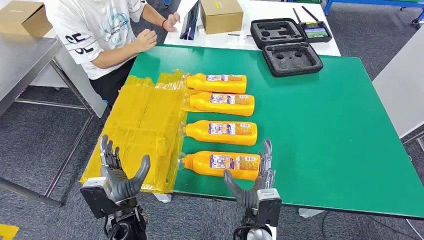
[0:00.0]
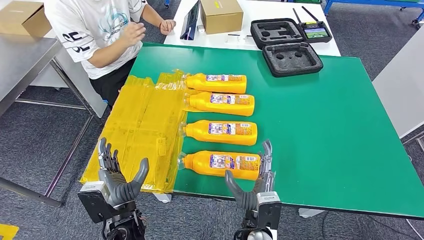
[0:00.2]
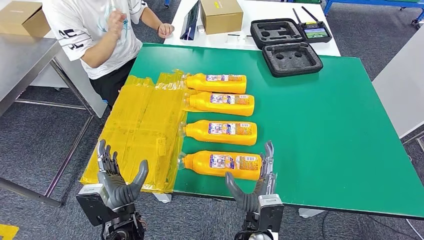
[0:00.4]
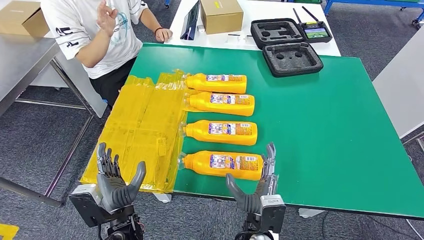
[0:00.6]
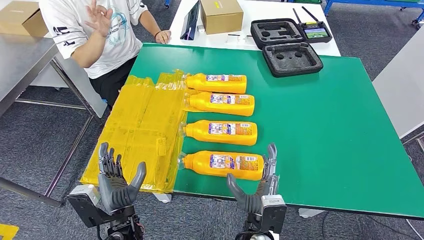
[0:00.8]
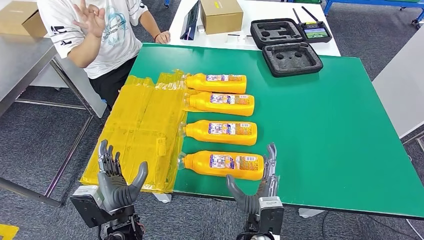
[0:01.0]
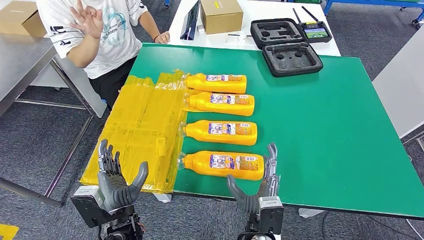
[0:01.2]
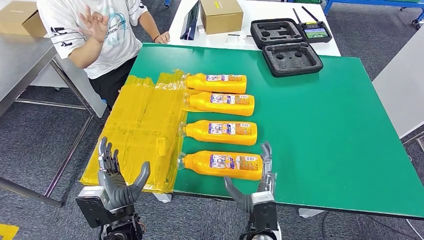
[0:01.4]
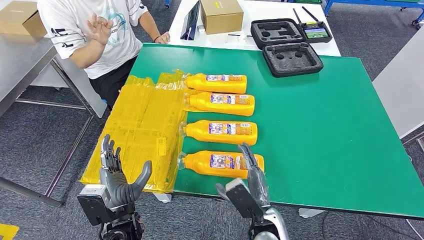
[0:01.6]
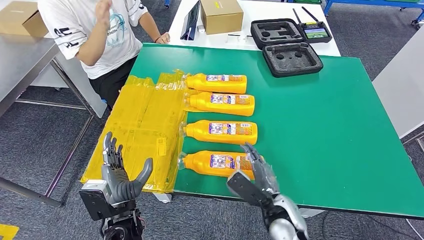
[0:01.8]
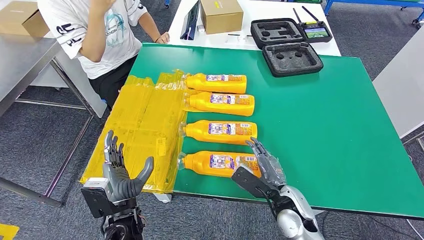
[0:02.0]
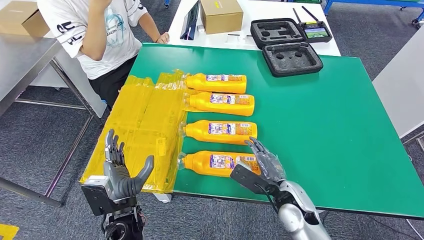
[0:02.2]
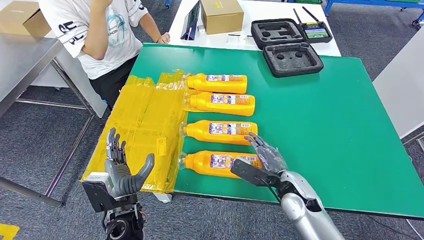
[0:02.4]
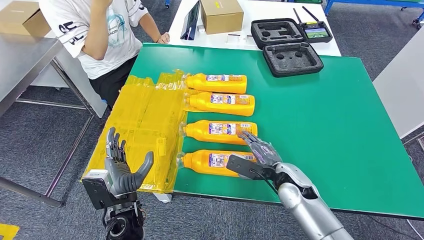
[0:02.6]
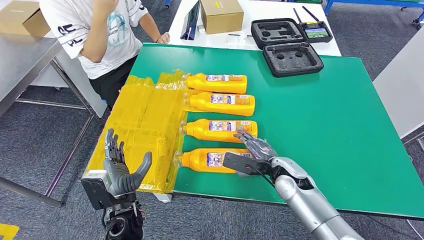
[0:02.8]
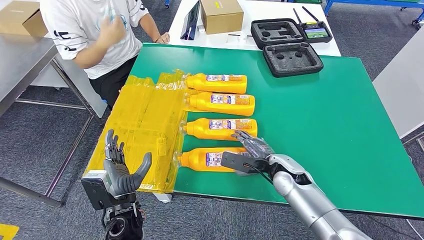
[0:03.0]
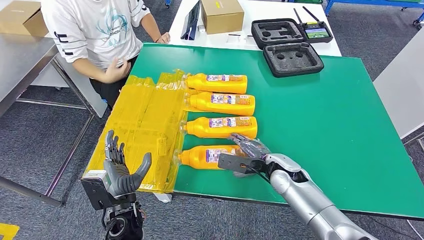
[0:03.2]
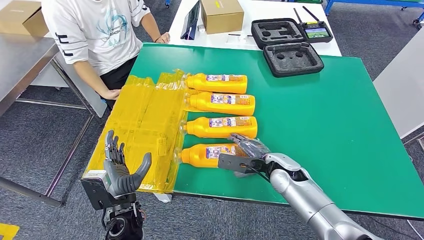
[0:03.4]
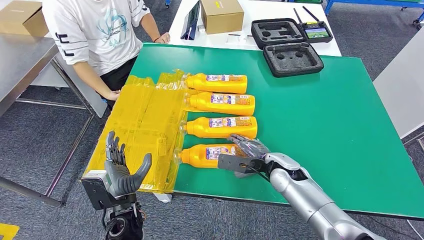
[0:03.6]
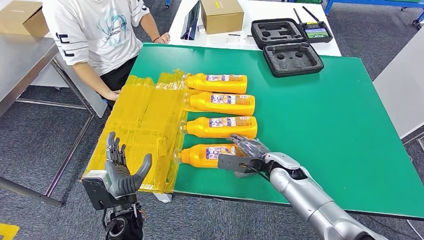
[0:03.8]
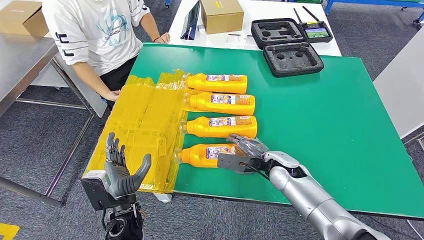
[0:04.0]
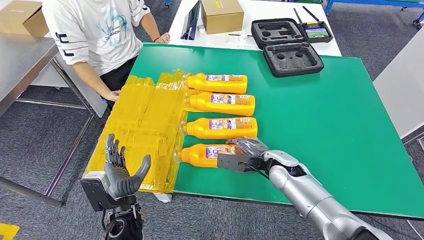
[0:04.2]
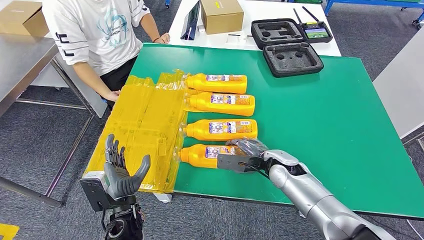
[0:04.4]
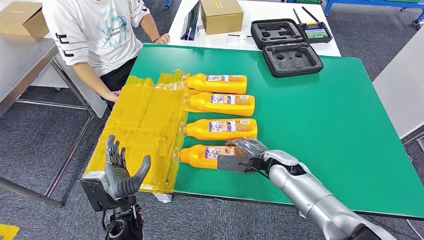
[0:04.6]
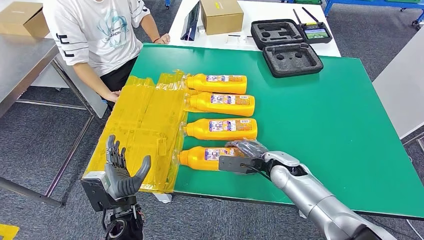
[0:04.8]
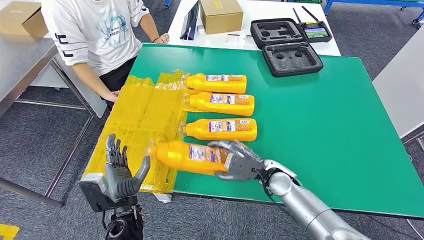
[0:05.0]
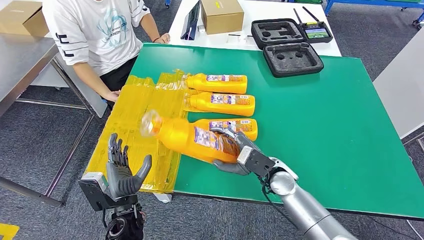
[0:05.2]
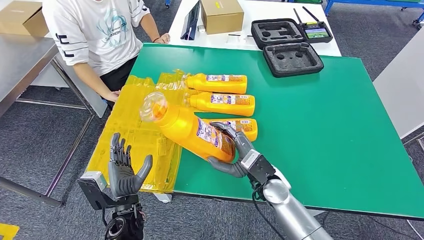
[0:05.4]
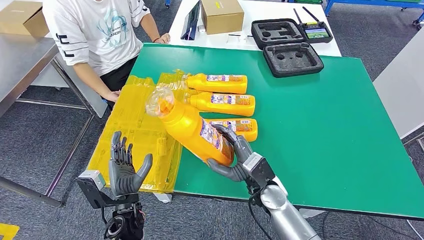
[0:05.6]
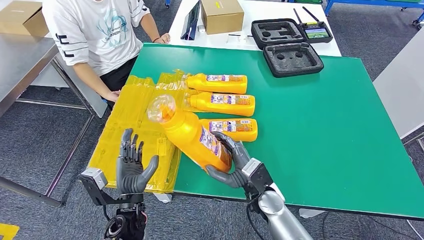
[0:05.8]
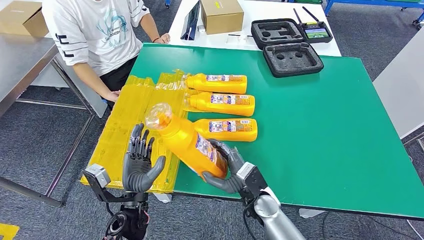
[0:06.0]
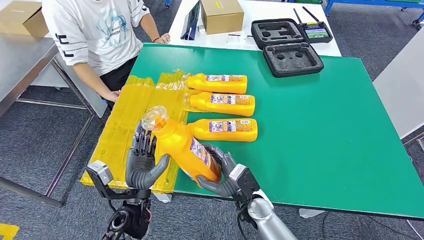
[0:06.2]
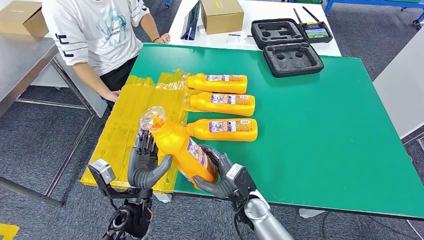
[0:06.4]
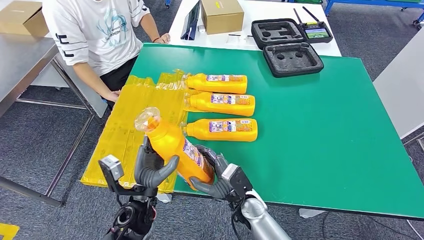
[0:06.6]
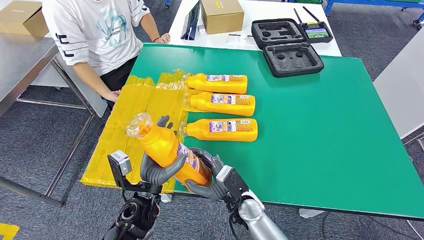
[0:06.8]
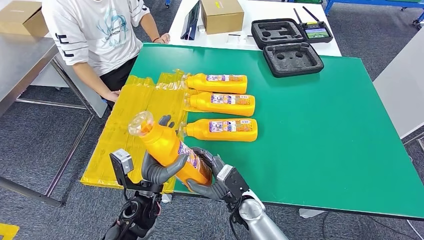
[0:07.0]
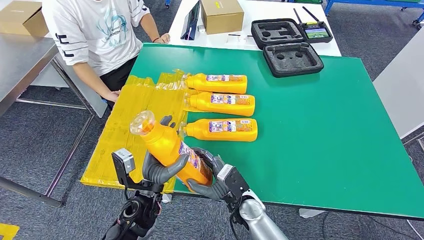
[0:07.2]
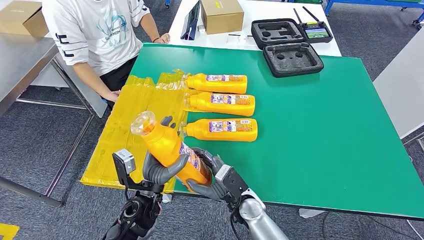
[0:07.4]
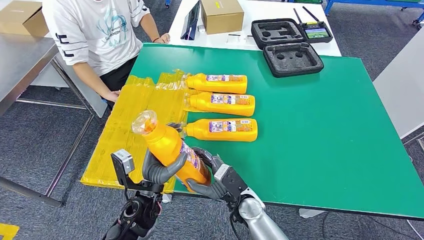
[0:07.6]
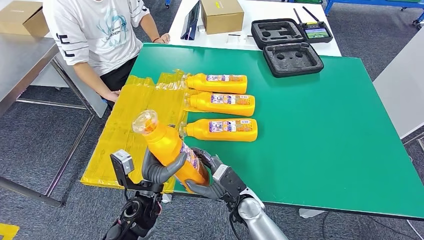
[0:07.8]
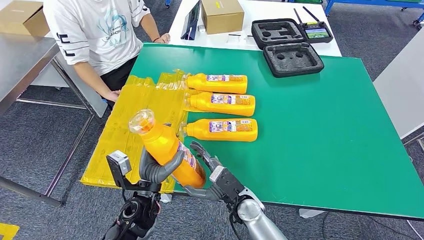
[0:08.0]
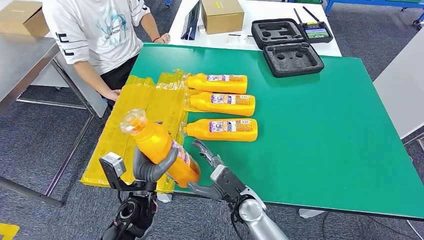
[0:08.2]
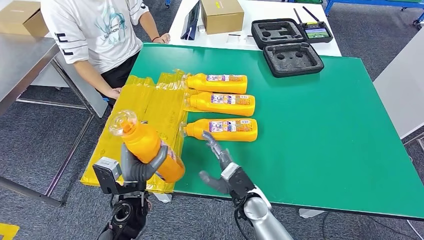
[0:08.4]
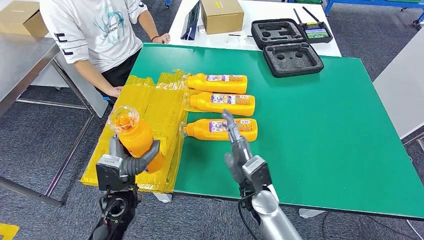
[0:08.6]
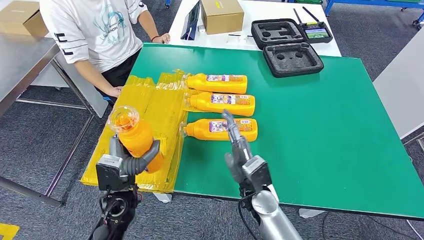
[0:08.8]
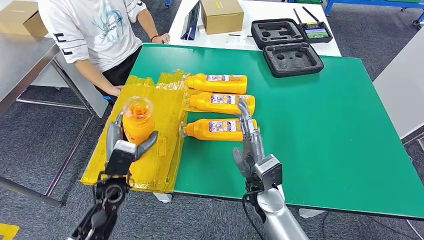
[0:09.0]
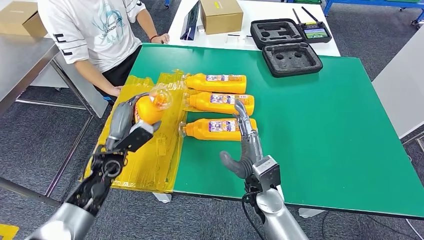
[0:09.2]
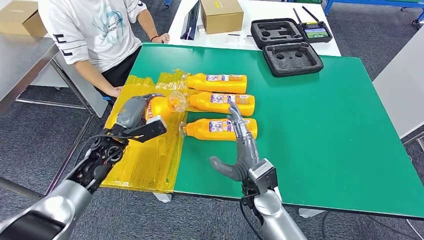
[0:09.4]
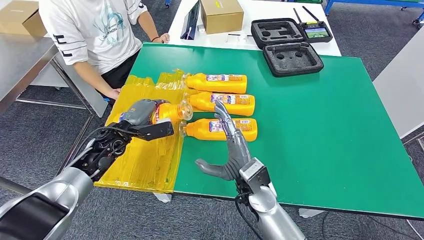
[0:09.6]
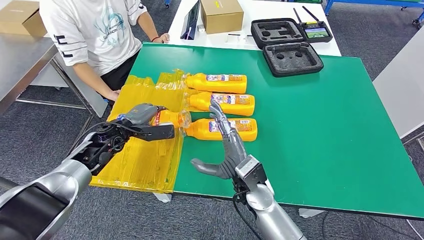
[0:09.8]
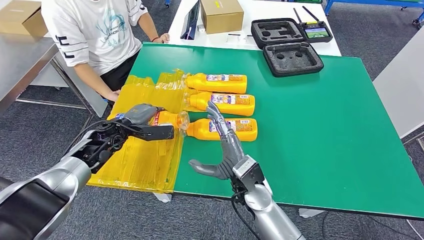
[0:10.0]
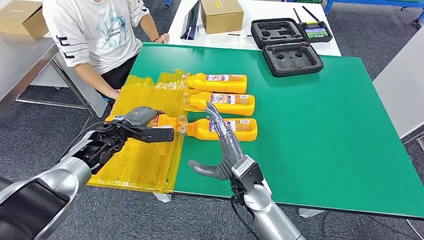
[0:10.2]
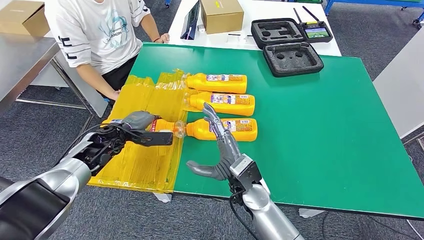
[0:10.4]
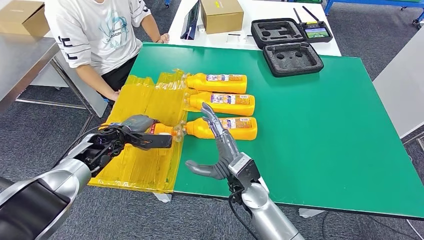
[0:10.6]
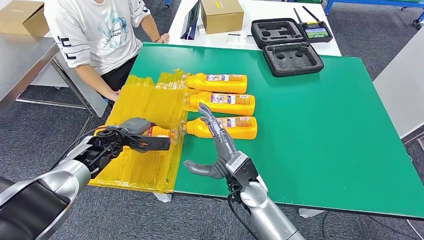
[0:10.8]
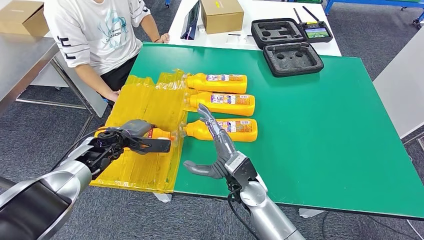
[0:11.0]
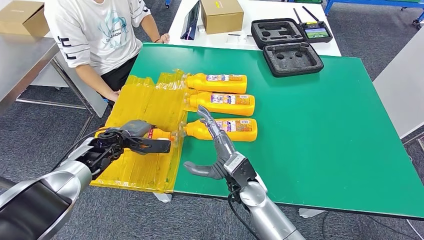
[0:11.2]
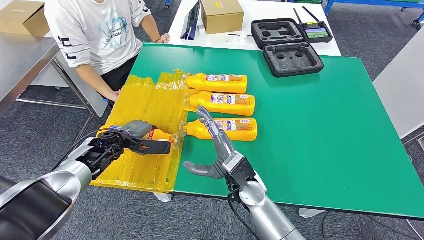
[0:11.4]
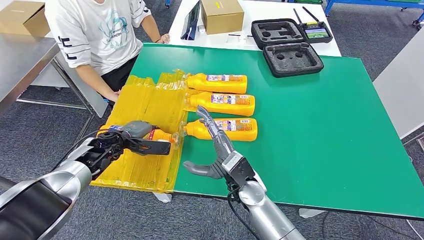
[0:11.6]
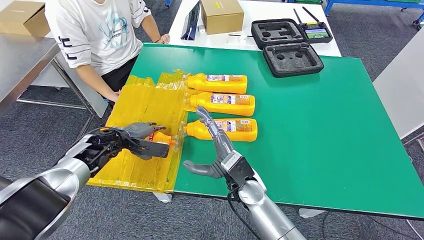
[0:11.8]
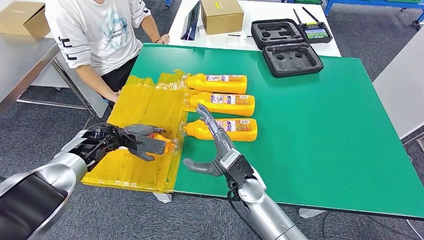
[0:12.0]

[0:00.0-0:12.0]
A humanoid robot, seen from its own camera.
Step, 0:00.0 to 0:06.4: Take the bottle from the table.
Step, 0:06.6 to 0:11.2: Flip the bottle to face forward.
0:01.6 to 0:03.0: The right hand shifts some 15 cm forward.
0:03.0 to 0:04.4: The hands stay close to where they were, moving slightly.
0:04.4 to 0:06.0: The right hand travels backward and to the left by approximately 10 cm.
0:06.0 to 0:07.6: The hands make only small movements.
0:07.6 to 0:09.0: The left hand shifts some 5 cm to the left. The right hand goes about 5 cm upward.

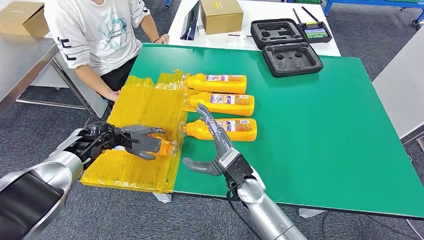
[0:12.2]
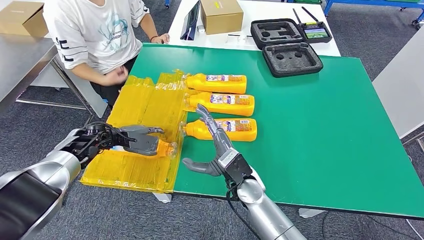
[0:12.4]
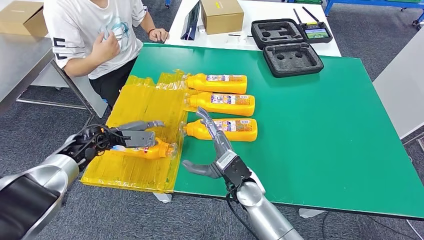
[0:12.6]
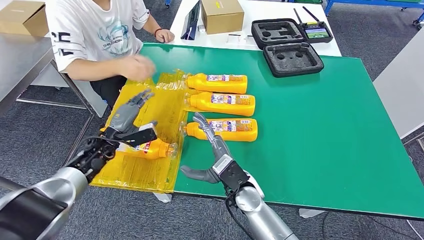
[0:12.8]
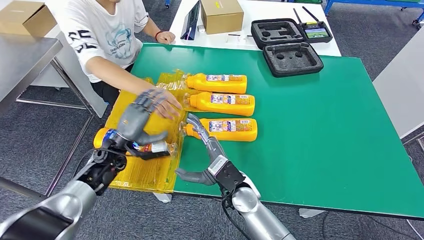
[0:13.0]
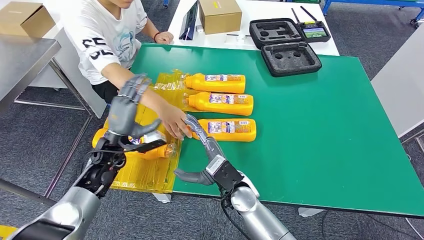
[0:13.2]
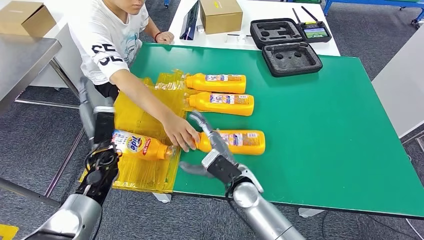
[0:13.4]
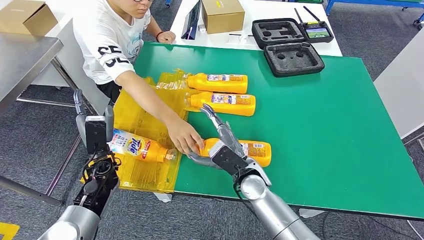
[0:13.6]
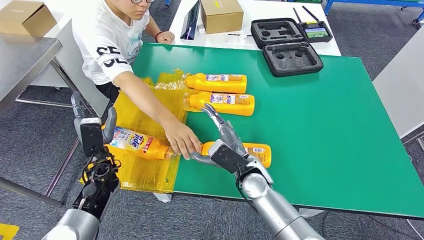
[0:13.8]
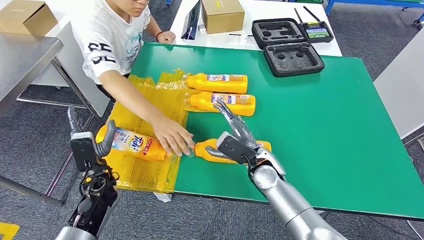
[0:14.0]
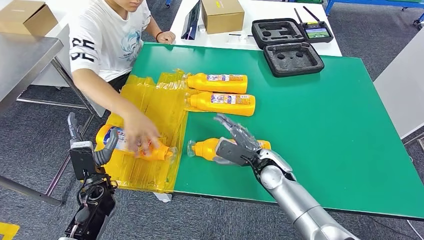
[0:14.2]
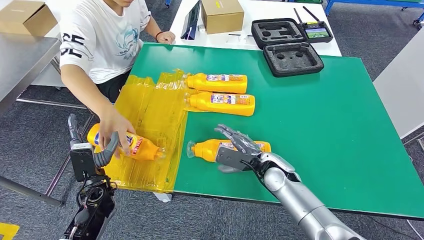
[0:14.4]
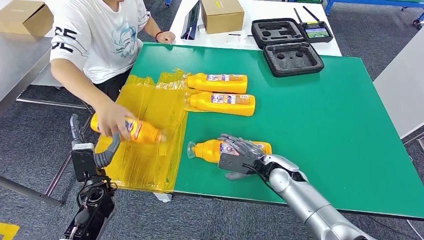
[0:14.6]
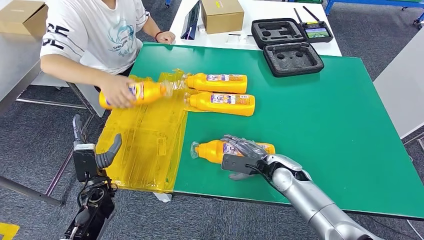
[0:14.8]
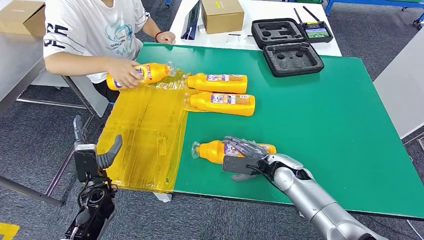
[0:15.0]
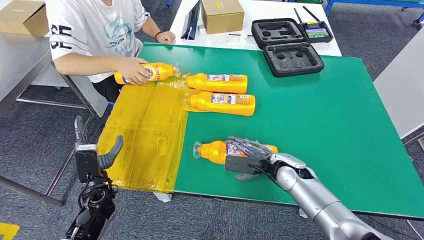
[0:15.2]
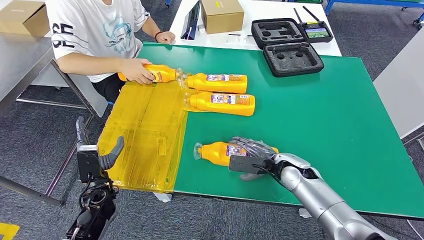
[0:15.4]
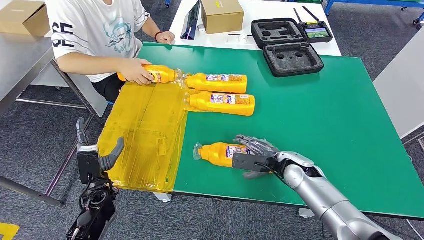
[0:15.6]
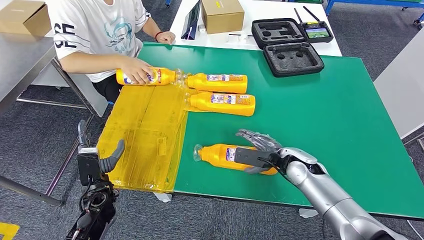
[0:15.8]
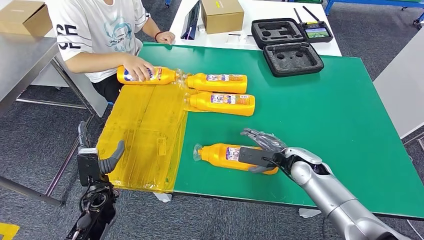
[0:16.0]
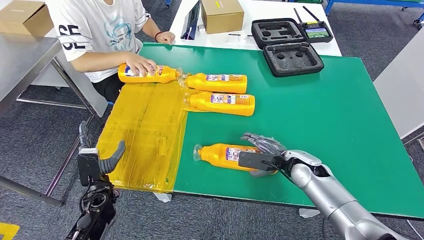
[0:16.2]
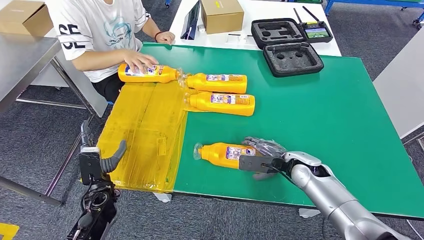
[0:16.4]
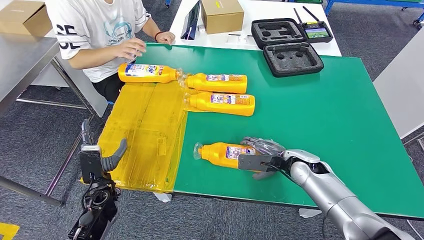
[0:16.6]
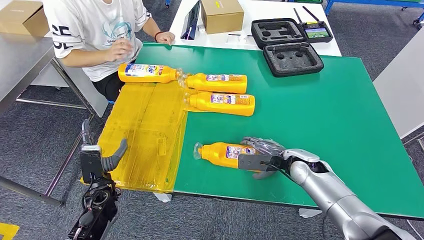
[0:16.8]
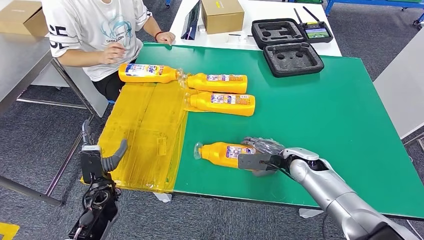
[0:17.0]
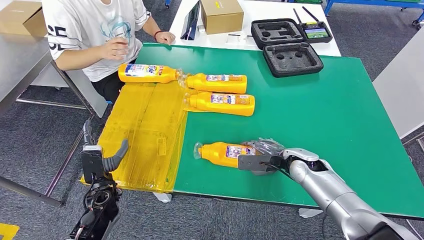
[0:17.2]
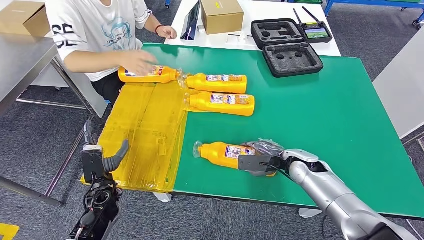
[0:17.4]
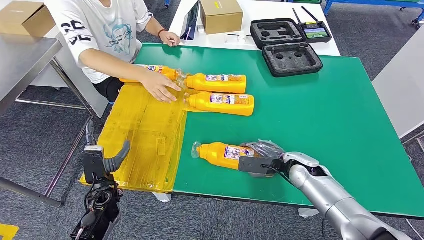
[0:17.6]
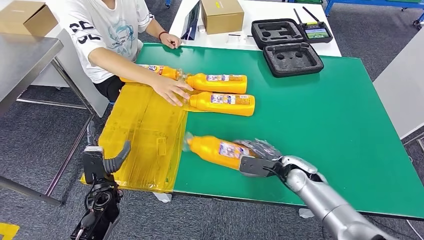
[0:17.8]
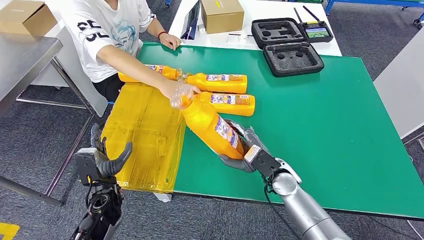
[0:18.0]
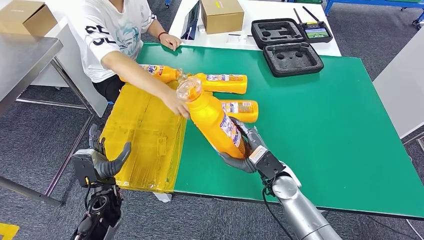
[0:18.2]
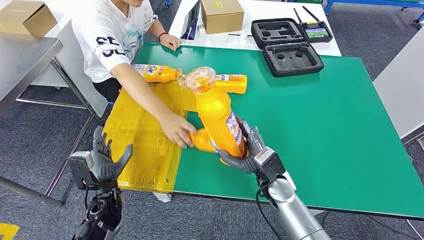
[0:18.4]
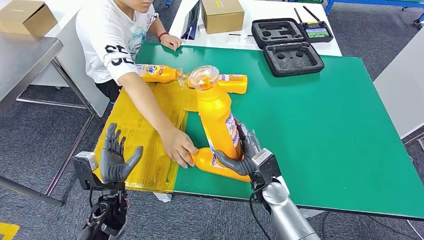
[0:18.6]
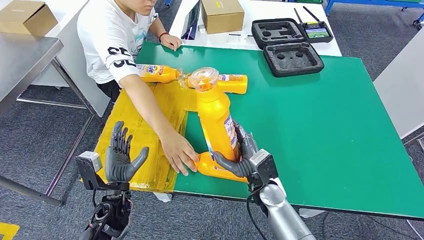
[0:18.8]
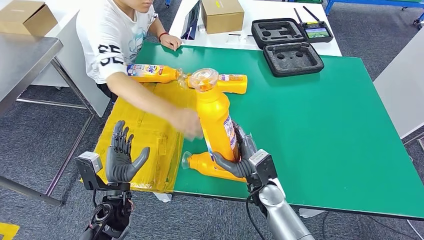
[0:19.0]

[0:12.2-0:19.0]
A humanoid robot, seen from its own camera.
Step, 0:12.2 to 0:18.8: Pick up the bottle from the table.
0:15.0 to 0:16.2: The right hand ends up roughly 5 cm from where it was.
0:16.2 to 0:17.6: The hands make only small movements.
